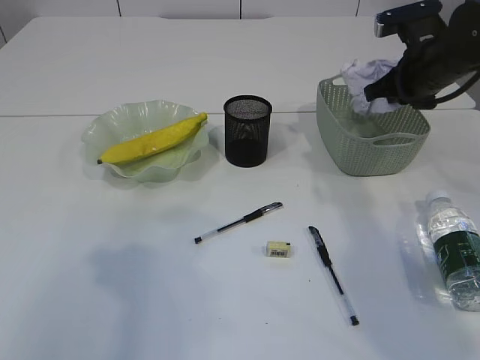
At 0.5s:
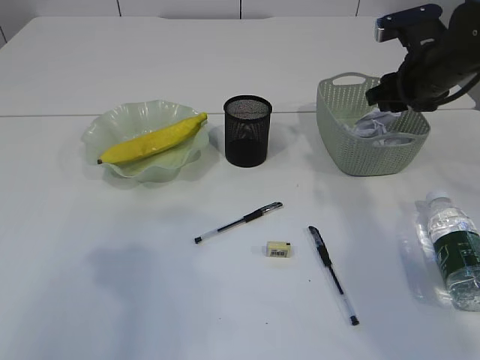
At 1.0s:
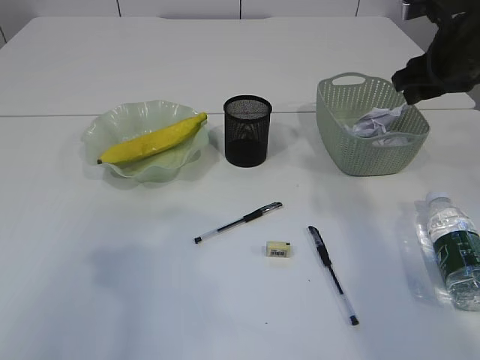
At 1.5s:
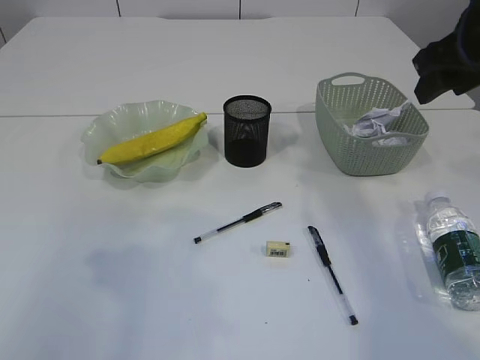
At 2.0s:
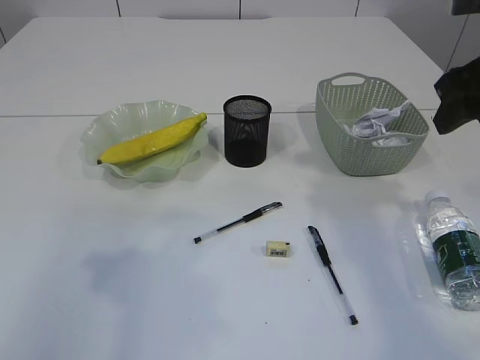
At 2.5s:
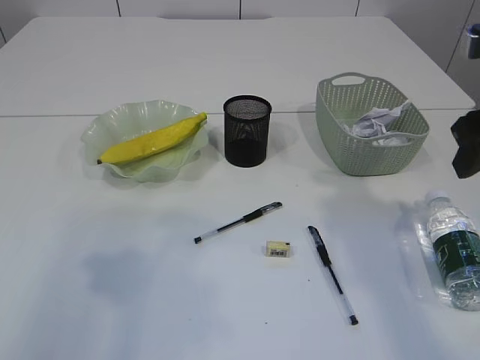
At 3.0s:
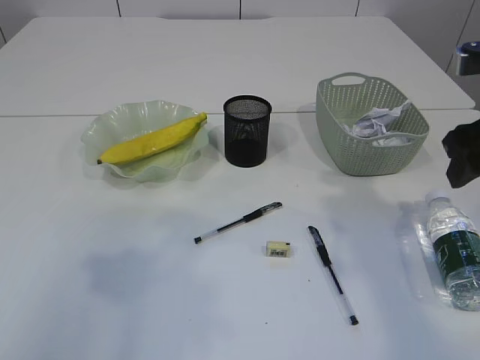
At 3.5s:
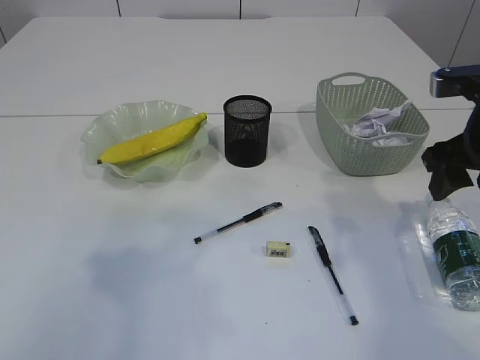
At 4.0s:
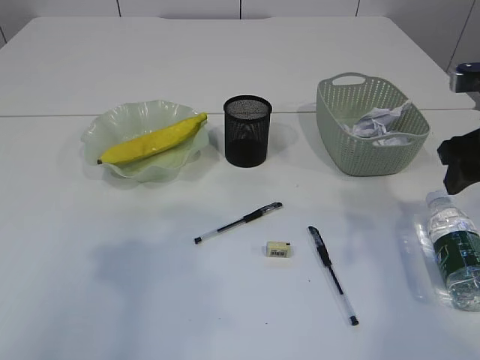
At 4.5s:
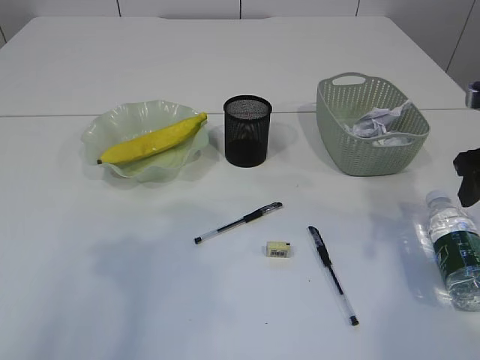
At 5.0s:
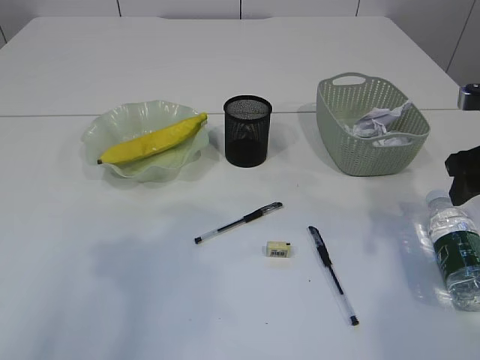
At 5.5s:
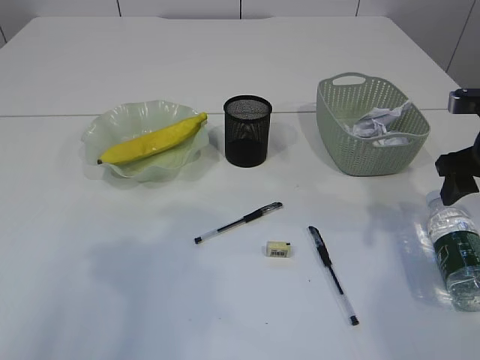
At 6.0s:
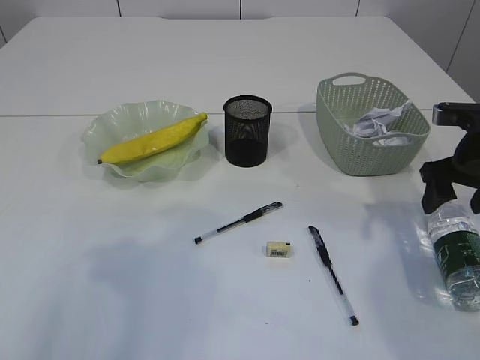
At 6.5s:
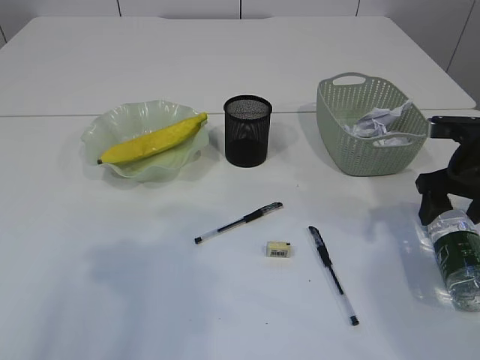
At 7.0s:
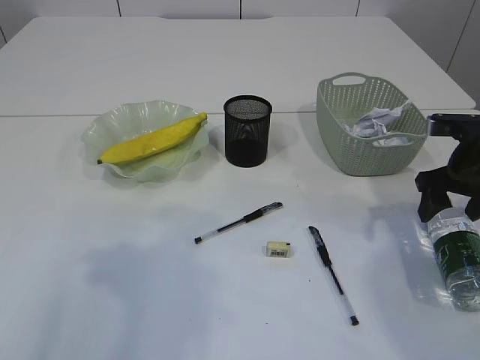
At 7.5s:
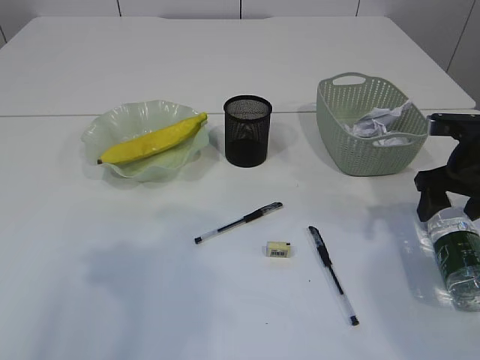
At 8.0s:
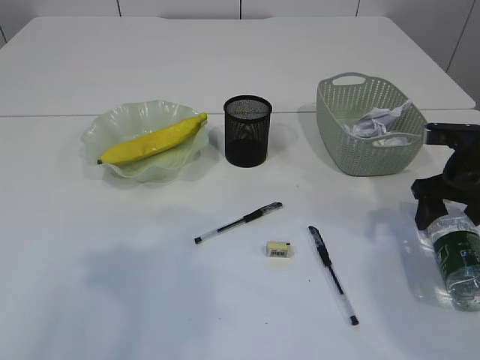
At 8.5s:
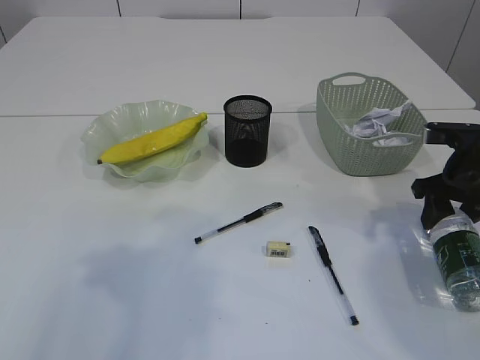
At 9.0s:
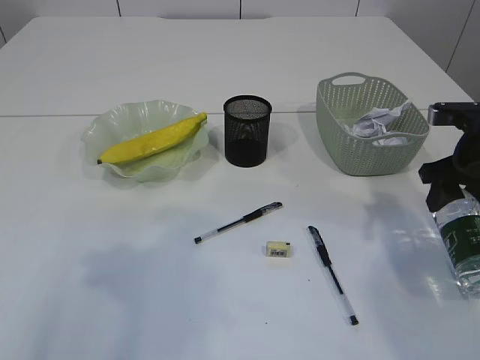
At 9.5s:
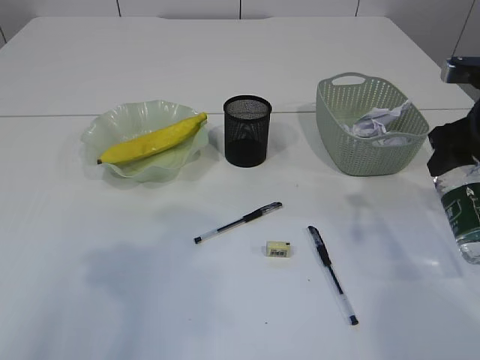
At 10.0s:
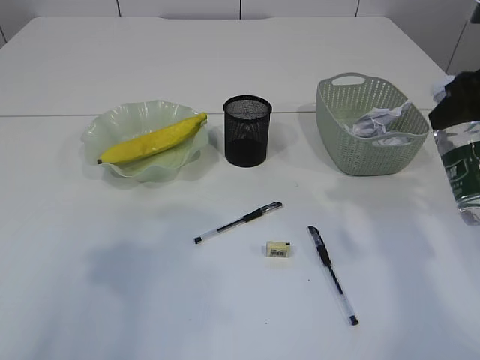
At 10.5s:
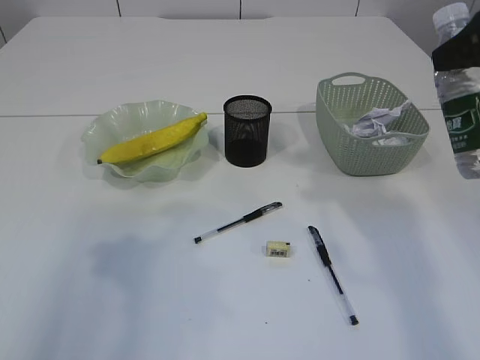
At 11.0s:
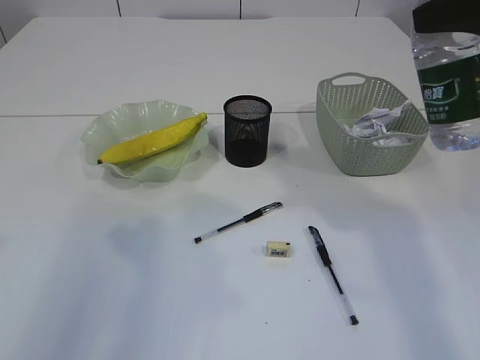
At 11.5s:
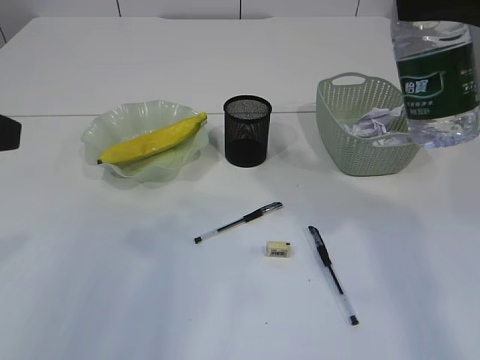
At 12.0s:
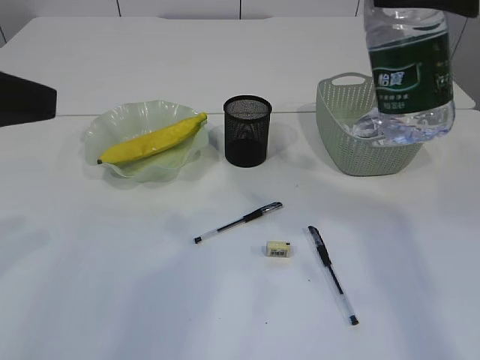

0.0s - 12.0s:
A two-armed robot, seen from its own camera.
Step, 1.0s - 9.5s: Pick up the bottle with the right arm.
0.0s - 2.0s: The right gripper heads backward and upward, covering some 15 cm, and opens.
2.0s - 4.0s: The right gripper goes about 5 cm downward.
4.0s - 6.0s: The right gripper heads downward, covering approximately 5 cm.
6.0s - 8.0s: The grippers make only small movements.
8.0s - 10.0s: The right gripper is displaced upward by approximately 15 cm.
10.0s - 12.0s: The left gripper changes place by approximately 5 cm, while the right gripper travels upward, to the left and backward by some 15 cm.

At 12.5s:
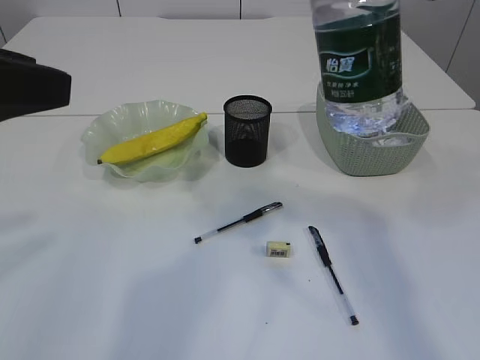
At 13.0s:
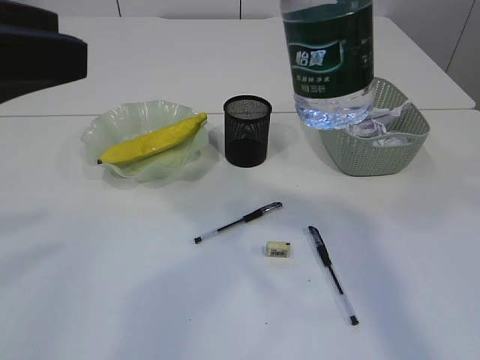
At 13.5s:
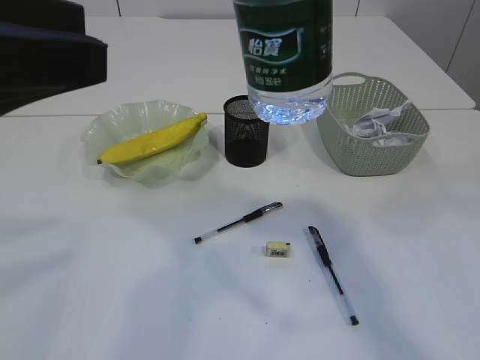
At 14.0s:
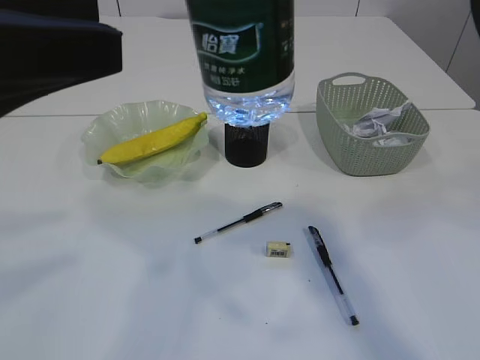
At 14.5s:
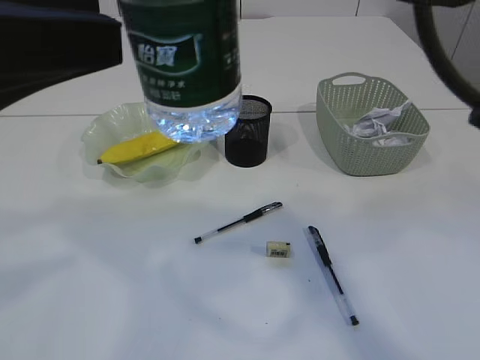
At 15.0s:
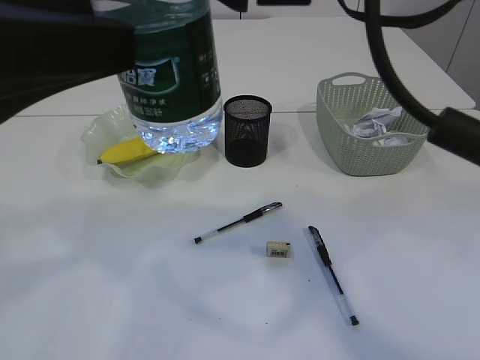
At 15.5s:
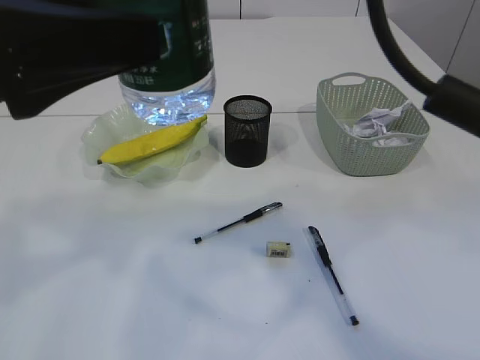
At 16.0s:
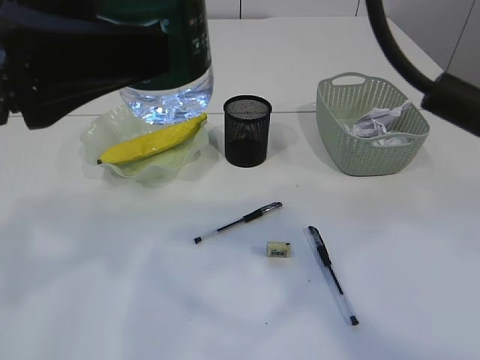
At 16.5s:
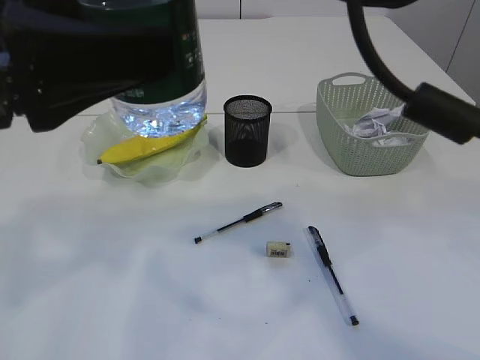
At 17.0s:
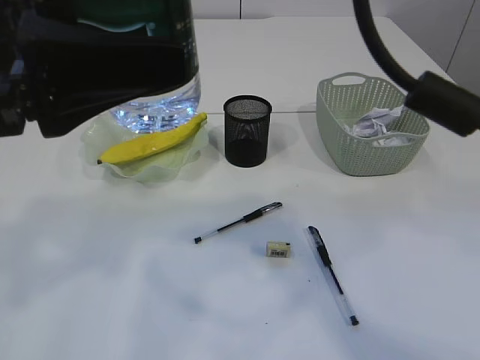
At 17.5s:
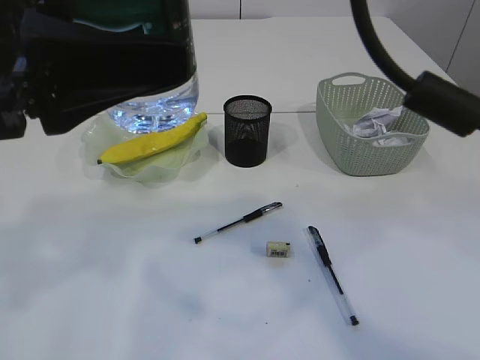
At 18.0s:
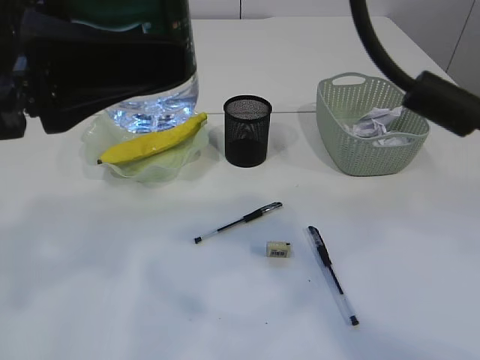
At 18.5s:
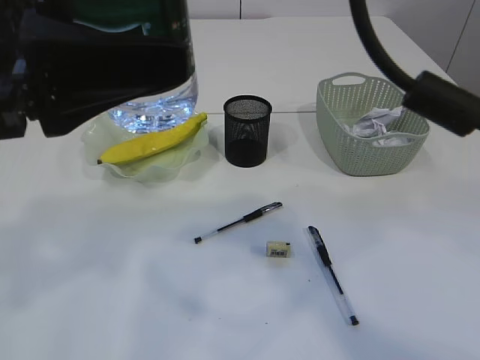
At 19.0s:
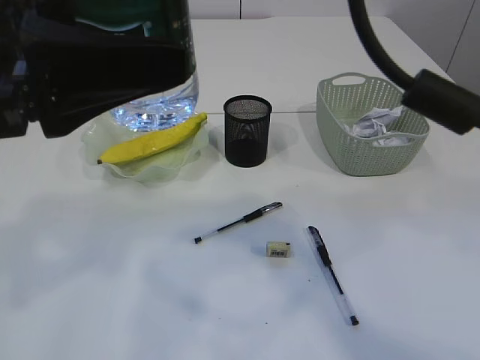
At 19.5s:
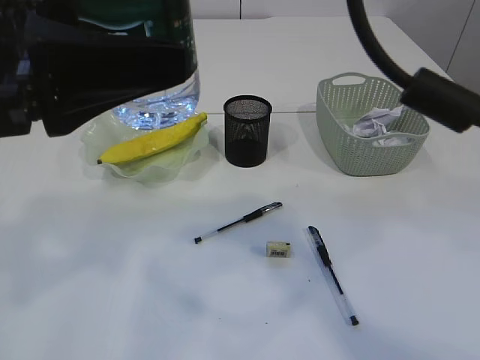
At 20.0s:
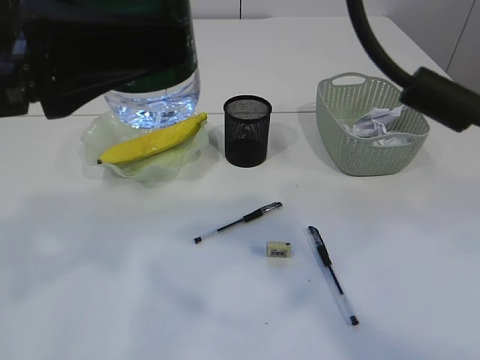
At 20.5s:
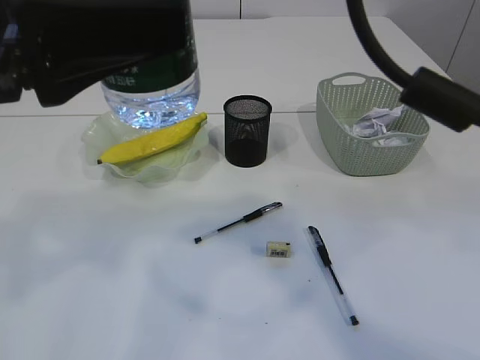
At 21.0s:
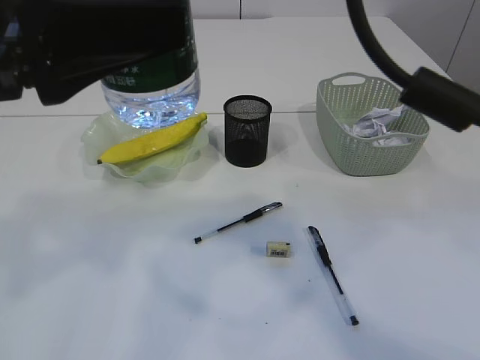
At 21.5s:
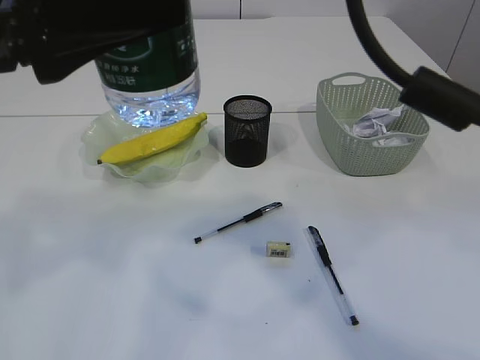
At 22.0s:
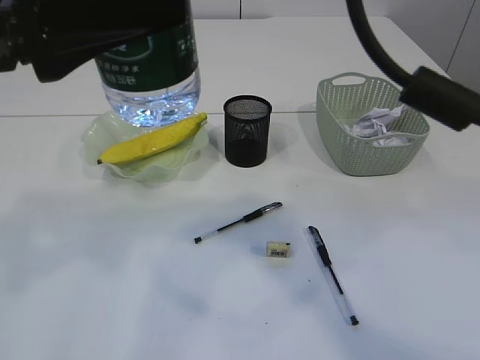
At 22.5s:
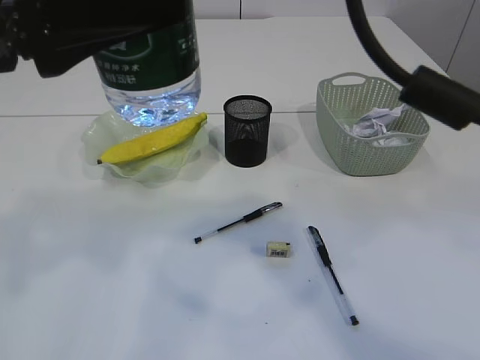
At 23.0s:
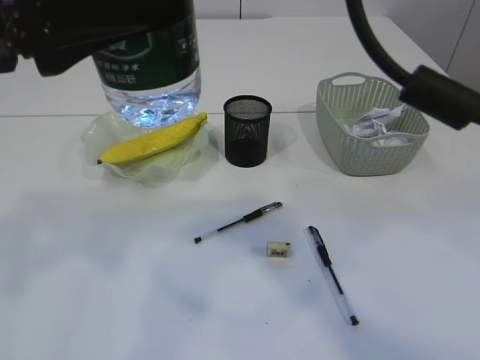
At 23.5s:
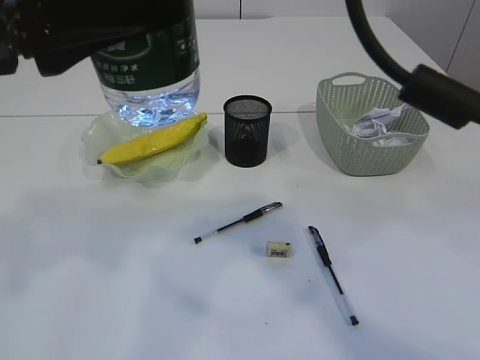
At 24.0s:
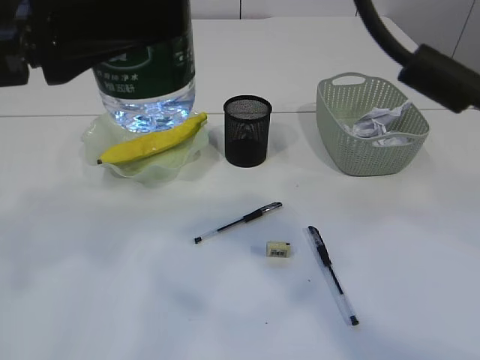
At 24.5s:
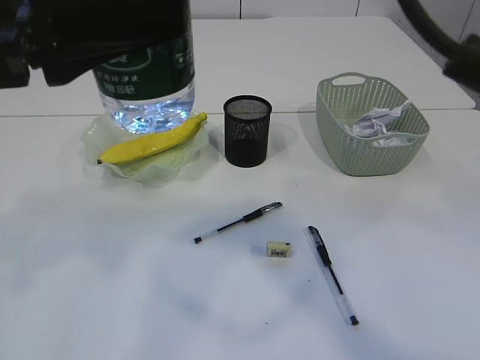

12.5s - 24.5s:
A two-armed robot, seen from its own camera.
12.5s - 14.5s: The right gripper shifts some 10 cm to the left.
14.5s - 16.5s: The grippers stay close to where they were, moving slightly.
16.5s - 18.5s: Both grippers stay about where they are.
18.5s - 20.5s: The grippers move only a little.
20.5s - 22.5s: The two grippers keep their place.
22.5s - 24.5s: The grippers move only a little.

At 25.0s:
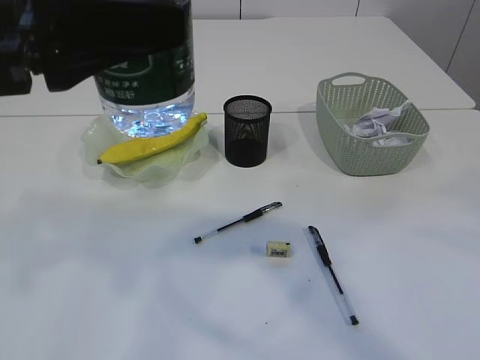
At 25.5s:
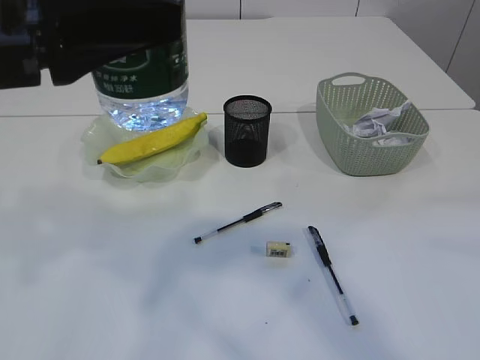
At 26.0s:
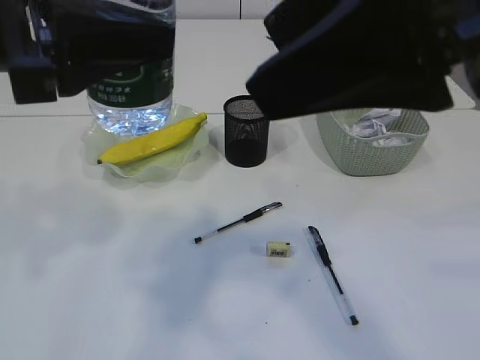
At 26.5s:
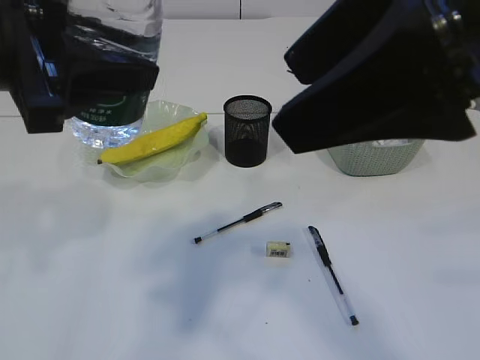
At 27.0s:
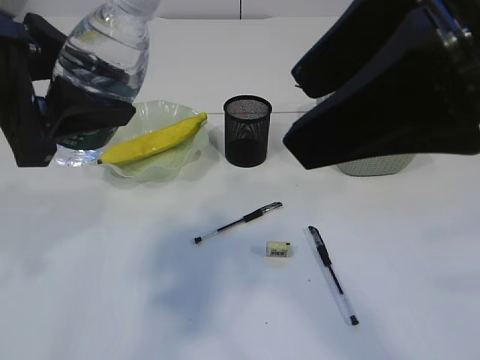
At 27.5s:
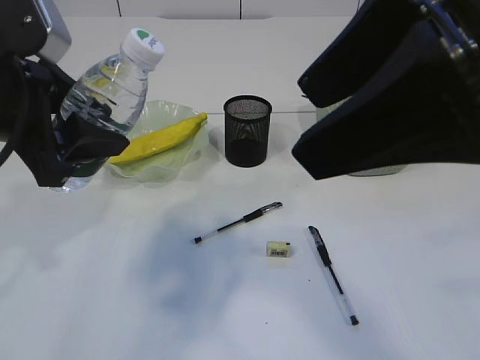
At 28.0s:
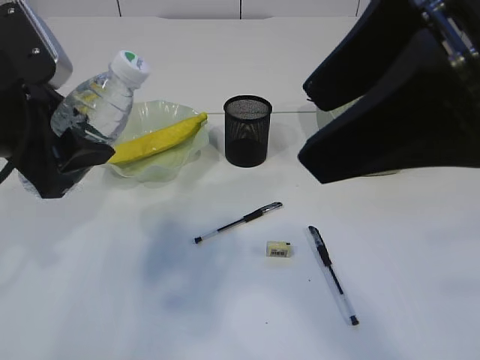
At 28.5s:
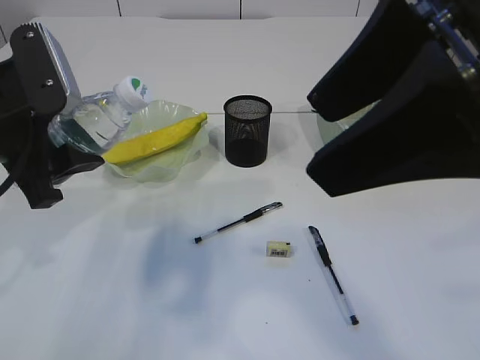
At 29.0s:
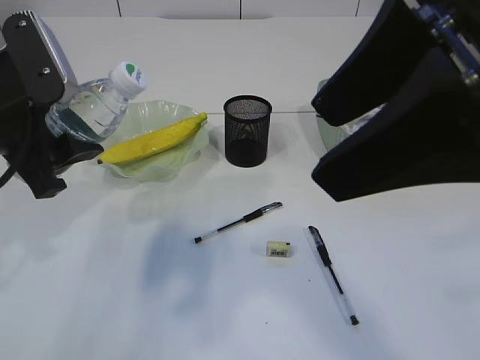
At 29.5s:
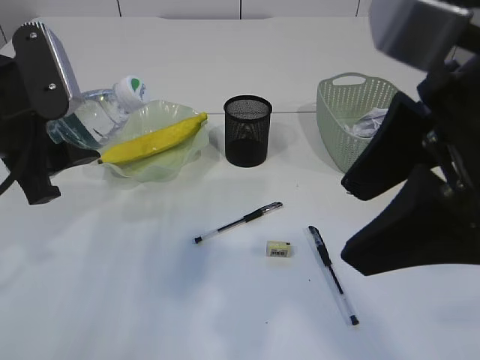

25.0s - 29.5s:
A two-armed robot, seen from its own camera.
25.0s - 27.0s: The right gripper changes place by about 5 cm.
27.0s - 29.5s: Both grippers move downward, some 5 cm.
